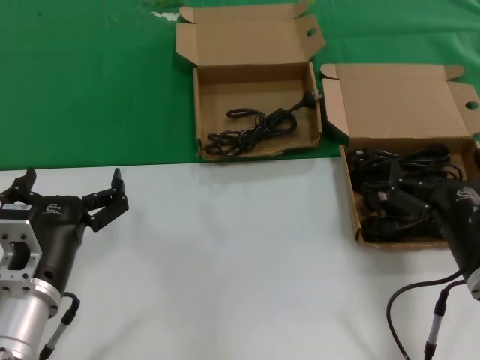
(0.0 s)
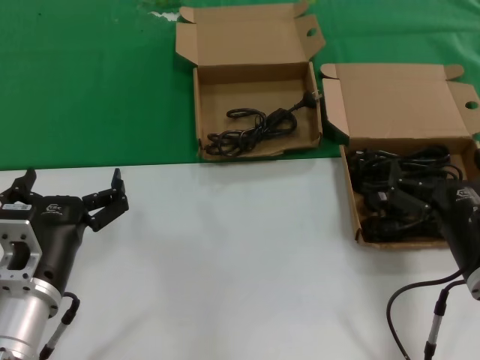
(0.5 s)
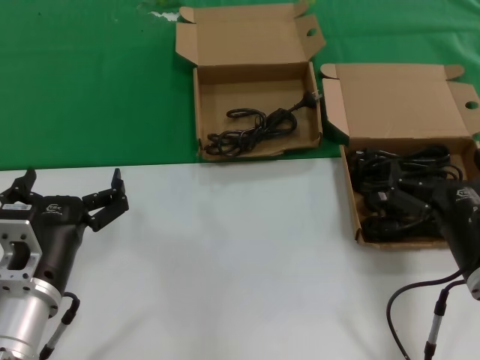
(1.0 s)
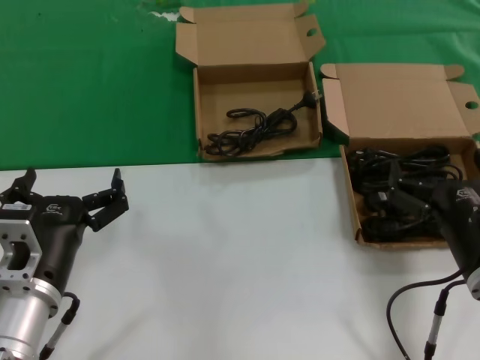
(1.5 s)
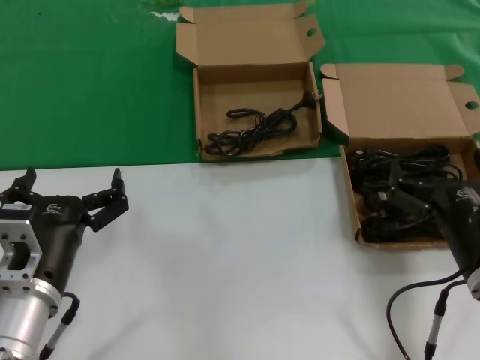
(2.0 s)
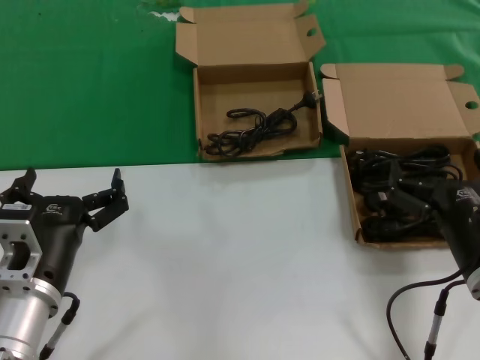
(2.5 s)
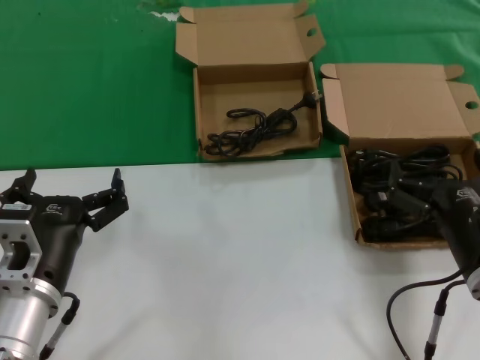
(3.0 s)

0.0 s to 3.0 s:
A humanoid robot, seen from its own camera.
Task of the whole recording: take the parts from the box containing them and put them into an empty box.
0.0 to 3.0 s: Both hands stay about where they are.
